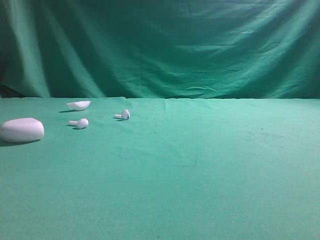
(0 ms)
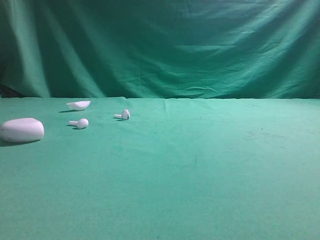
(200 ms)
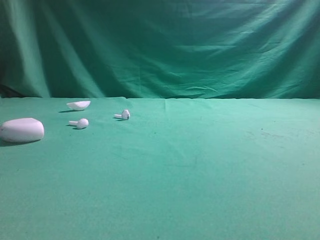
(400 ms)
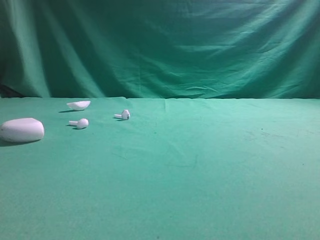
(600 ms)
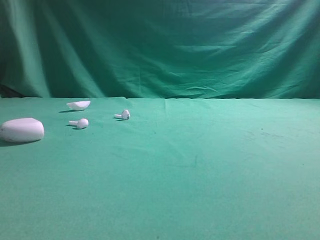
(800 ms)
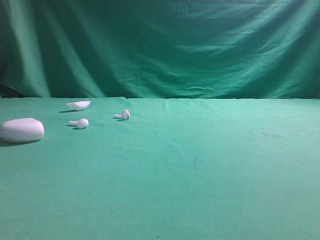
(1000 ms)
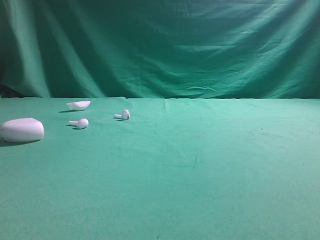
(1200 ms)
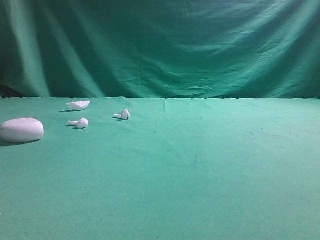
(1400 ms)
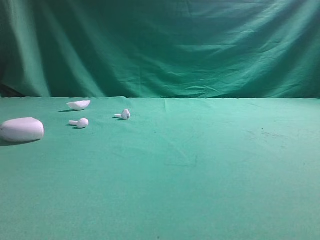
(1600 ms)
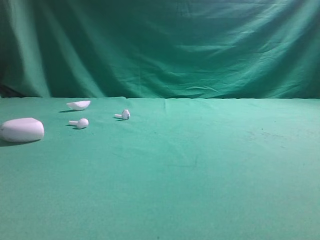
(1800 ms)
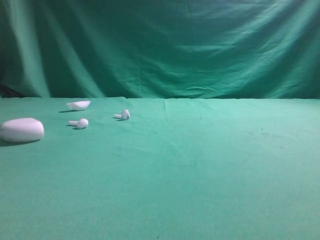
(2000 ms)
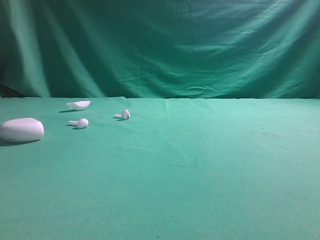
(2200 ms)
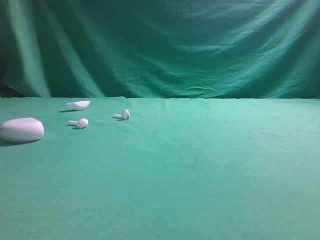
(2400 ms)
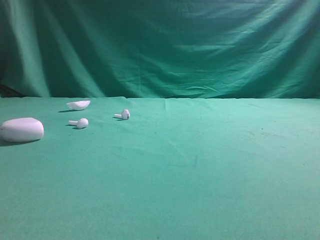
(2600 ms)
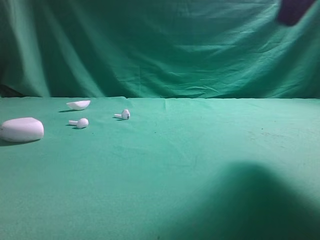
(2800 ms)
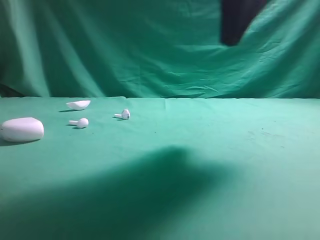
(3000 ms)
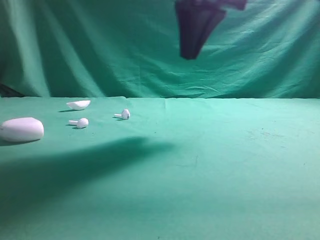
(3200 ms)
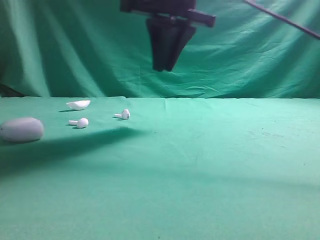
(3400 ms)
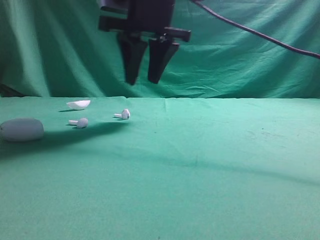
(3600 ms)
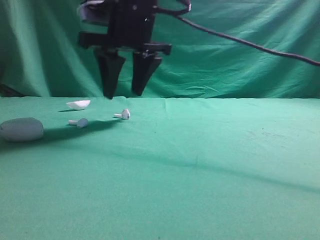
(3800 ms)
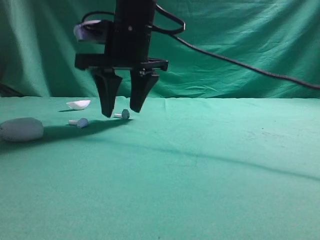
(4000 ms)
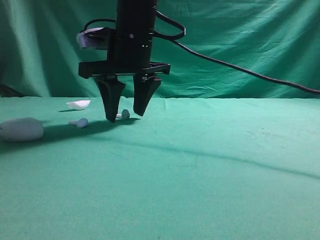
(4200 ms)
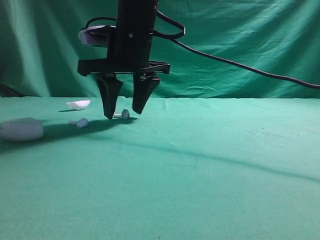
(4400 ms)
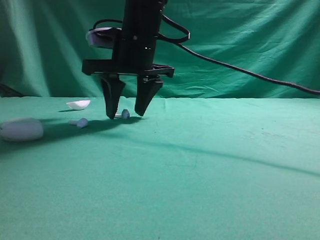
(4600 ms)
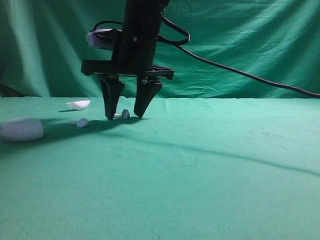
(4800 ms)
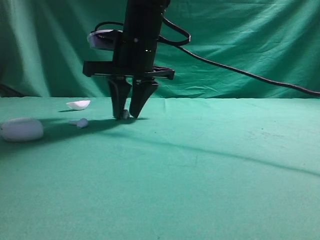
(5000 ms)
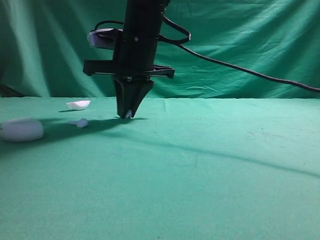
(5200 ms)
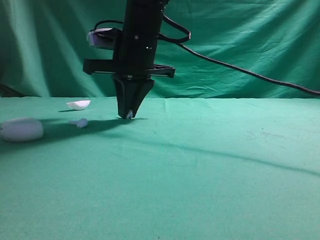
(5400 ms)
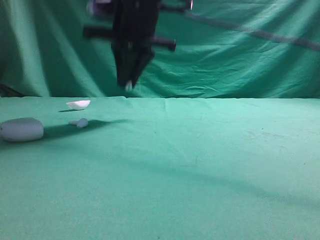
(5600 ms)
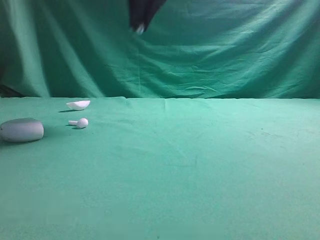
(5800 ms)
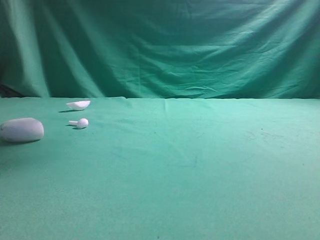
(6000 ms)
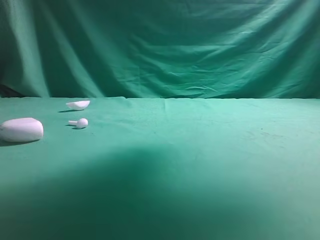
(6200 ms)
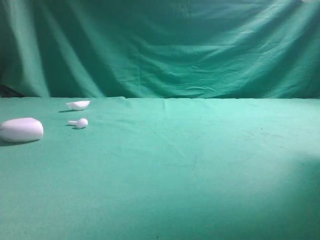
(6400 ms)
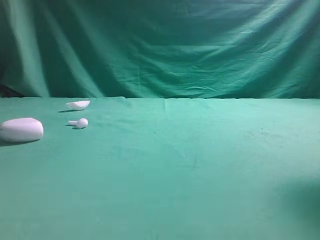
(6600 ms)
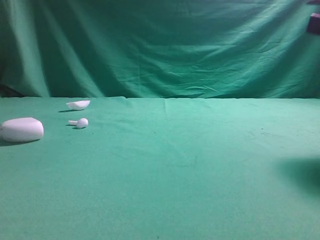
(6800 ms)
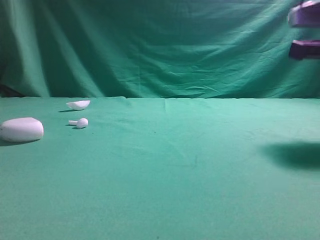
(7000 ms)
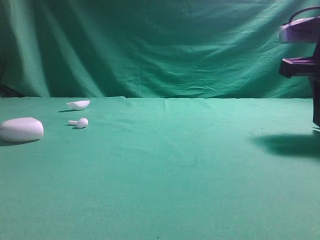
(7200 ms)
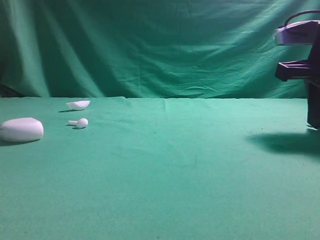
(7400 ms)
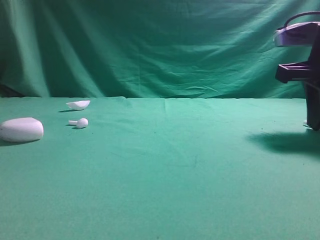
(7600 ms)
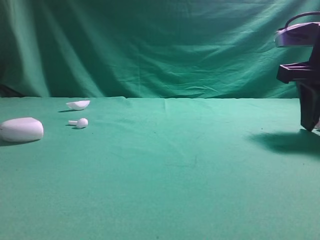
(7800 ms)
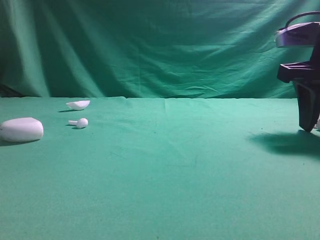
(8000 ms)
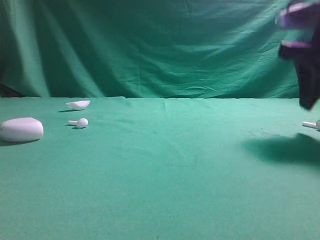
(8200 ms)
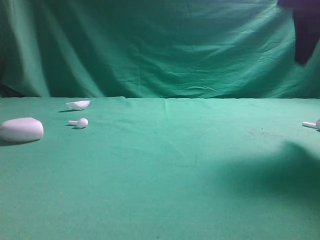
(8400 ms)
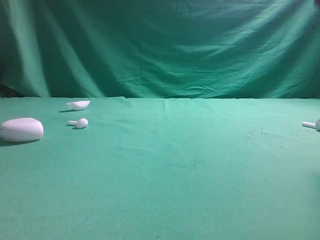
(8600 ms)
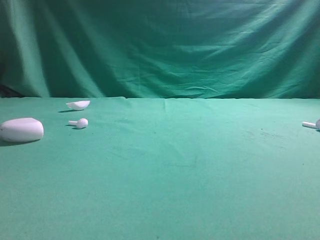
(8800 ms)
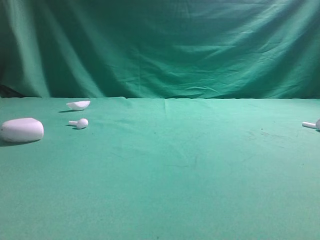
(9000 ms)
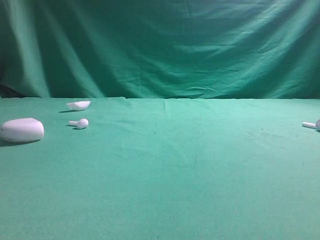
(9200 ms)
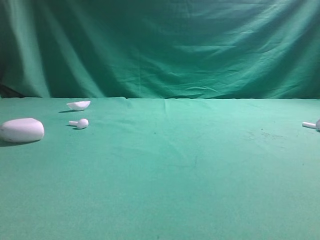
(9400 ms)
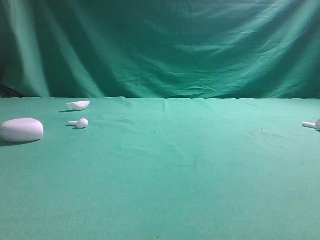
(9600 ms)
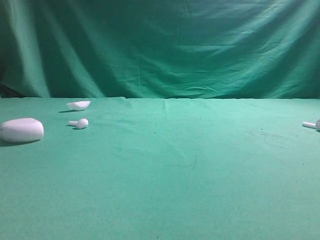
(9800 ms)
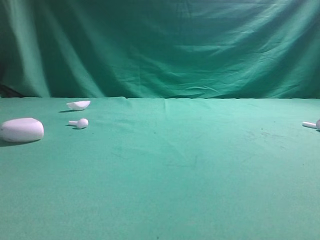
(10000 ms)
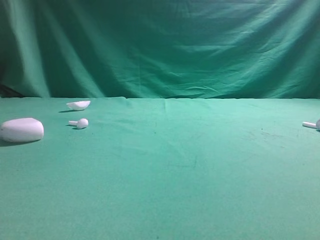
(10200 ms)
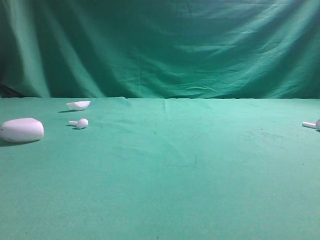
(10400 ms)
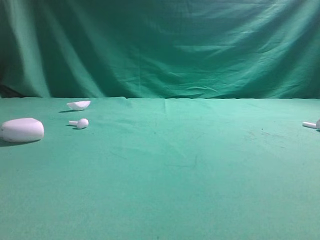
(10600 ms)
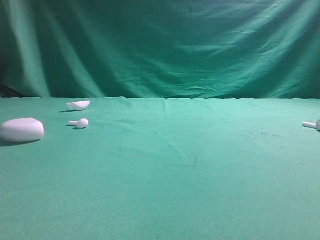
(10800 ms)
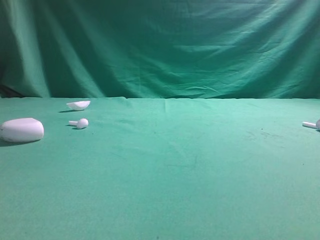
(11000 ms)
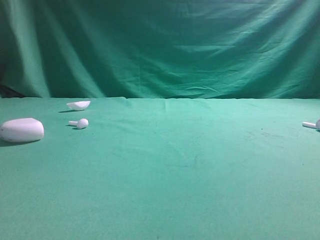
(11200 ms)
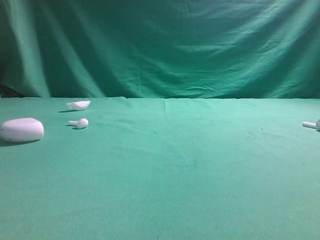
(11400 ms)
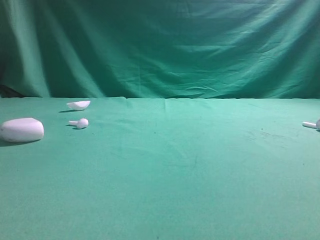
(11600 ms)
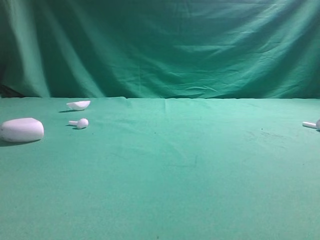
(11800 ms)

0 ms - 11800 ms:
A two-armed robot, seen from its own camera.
Step, 0 ms - 5800 ms: Grasp the Bluetooth earbud.
Step, 6000 ms - 8400 ms: Place bluetooth earbud on the right side of the table.

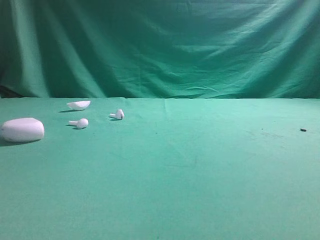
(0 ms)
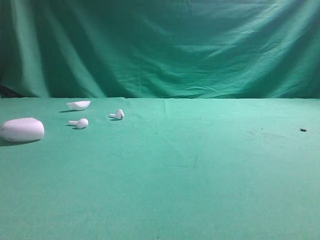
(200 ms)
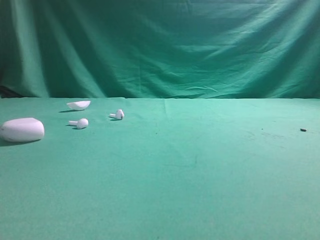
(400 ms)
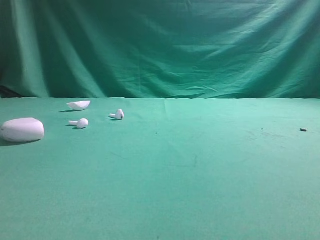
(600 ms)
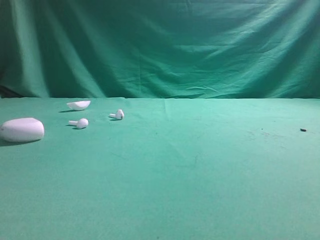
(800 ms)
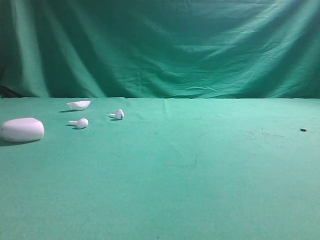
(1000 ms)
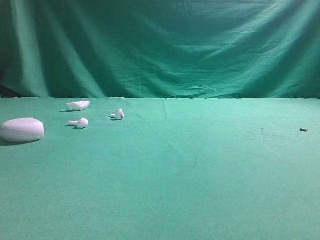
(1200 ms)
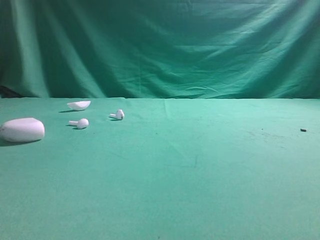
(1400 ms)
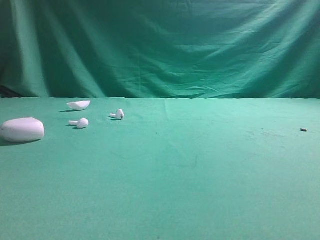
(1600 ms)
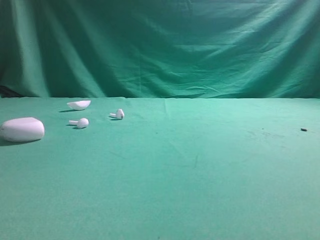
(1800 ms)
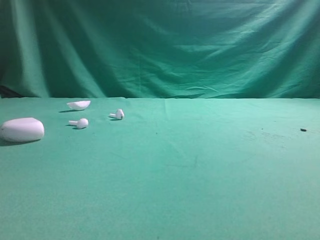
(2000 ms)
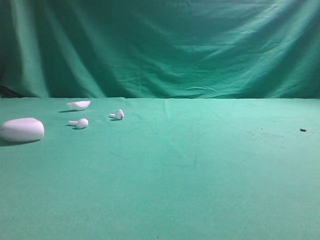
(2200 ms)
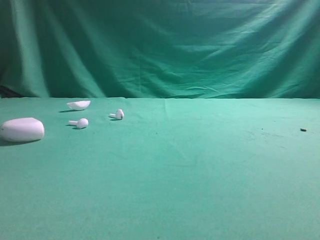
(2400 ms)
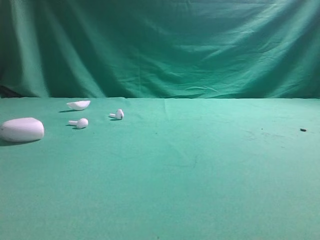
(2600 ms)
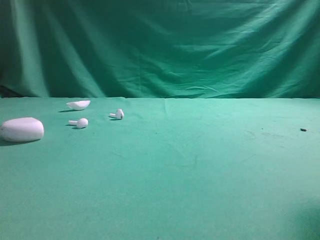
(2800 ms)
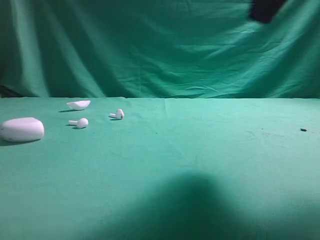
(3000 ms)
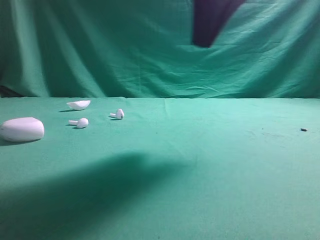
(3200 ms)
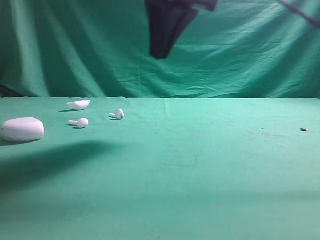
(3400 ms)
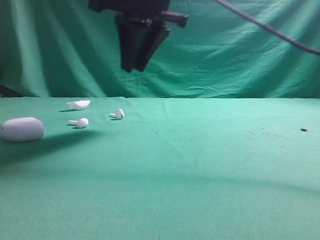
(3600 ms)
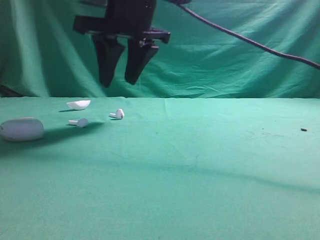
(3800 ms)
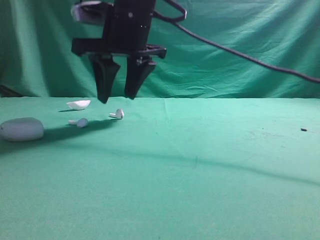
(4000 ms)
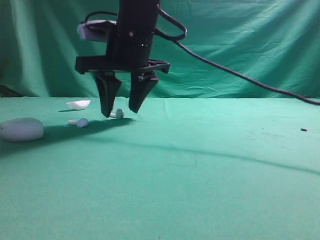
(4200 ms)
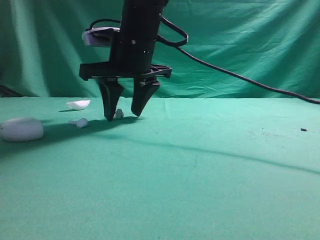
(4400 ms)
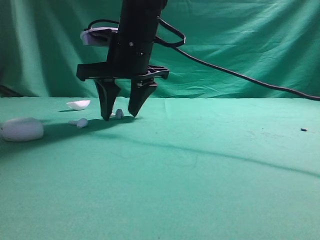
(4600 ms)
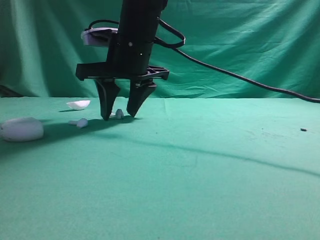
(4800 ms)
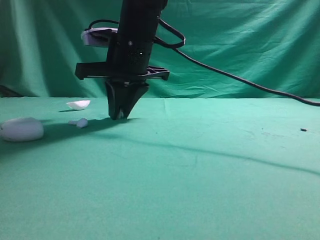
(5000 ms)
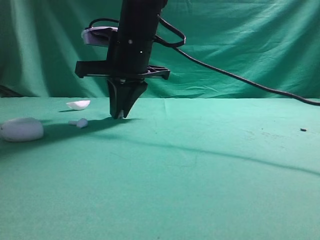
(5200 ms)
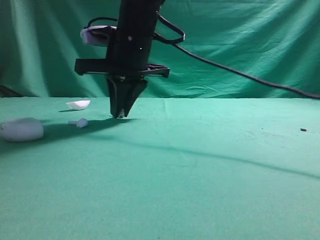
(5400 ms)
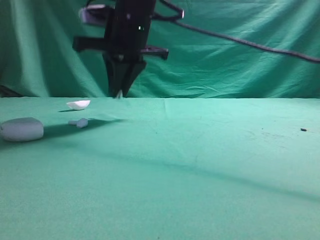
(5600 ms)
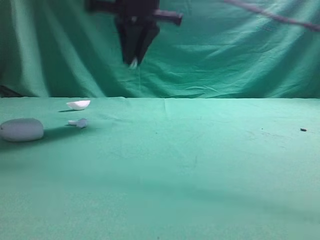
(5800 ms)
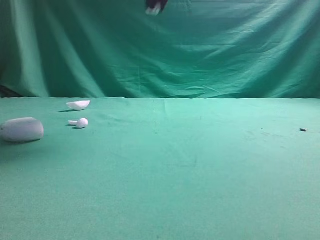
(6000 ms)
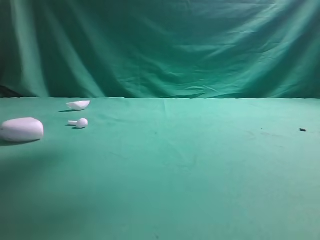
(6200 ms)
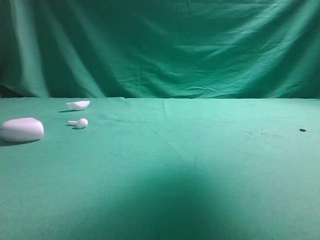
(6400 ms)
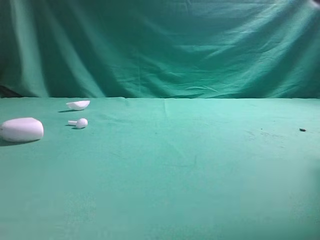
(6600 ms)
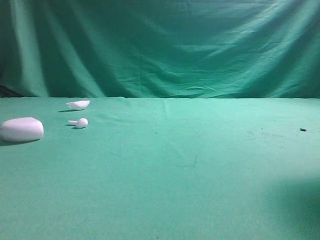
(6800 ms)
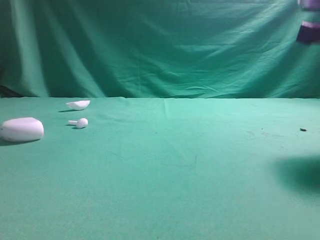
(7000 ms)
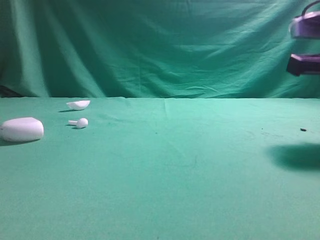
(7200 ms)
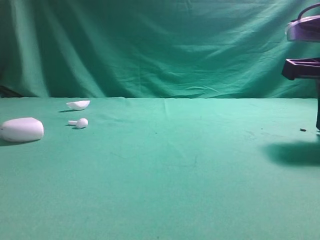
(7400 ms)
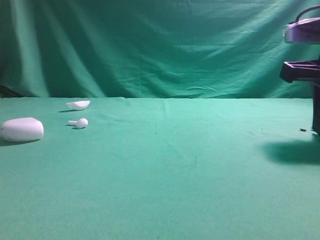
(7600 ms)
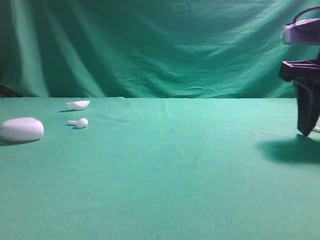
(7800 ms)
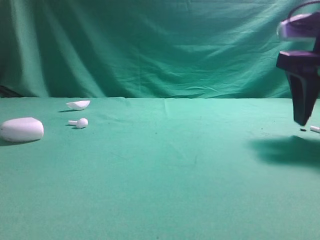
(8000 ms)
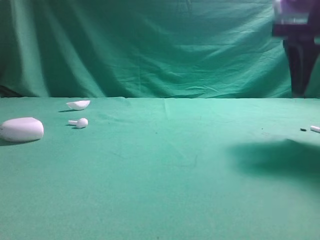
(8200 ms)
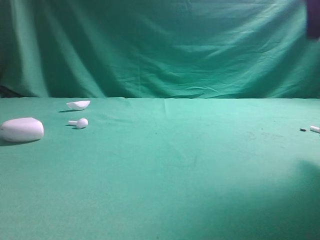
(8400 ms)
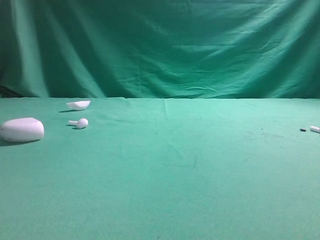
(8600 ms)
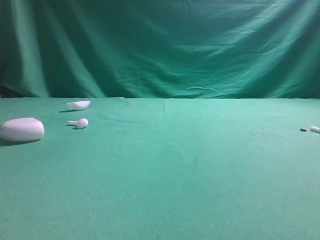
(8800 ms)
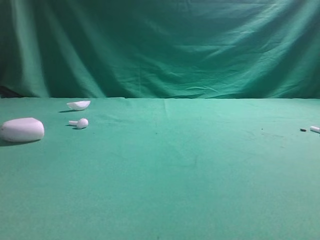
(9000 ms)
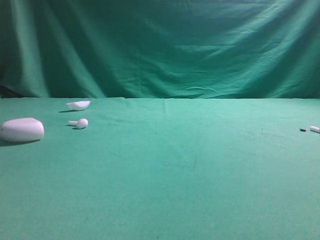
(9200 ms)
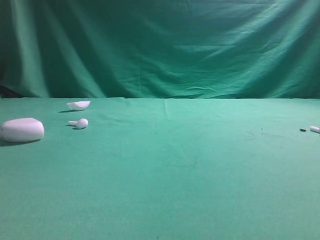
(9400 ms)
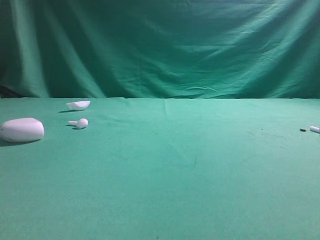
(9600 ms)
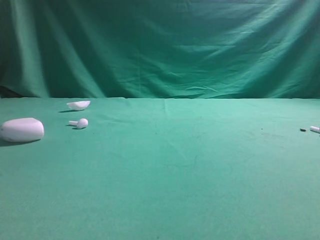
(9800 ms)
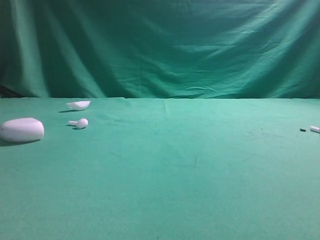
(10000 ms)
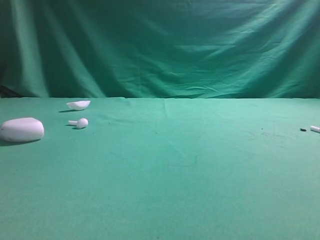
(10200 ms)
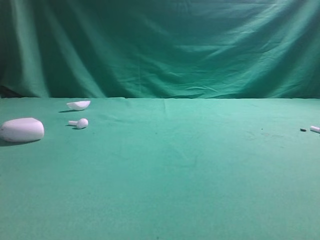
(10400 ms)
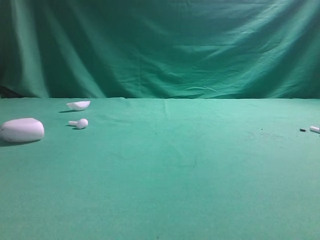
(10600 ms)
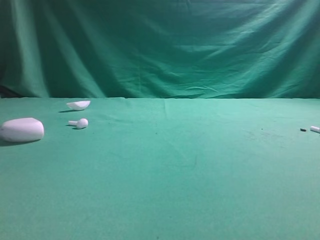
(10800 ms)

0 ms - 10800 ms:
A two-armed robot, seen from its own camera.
Step, 0 ms - 5200 ms: Grasp the Bluetooth earbud.
Step, 5400 ms - 7400 ms: Place bluetooth earbud on the right side of the table.
